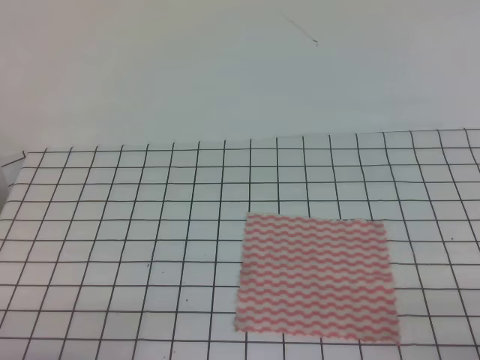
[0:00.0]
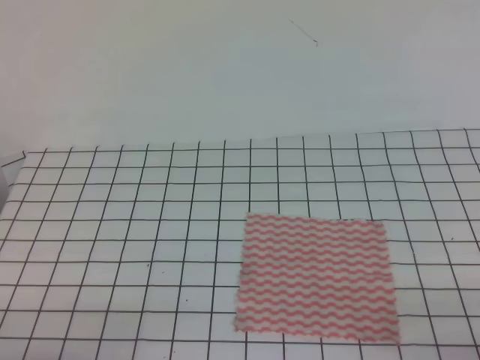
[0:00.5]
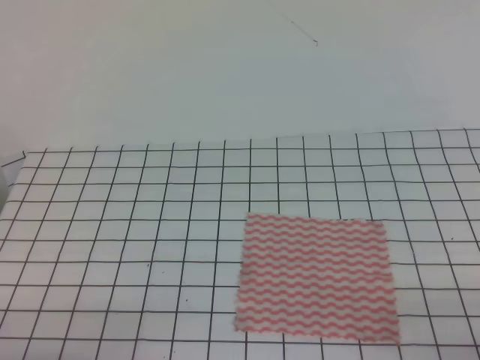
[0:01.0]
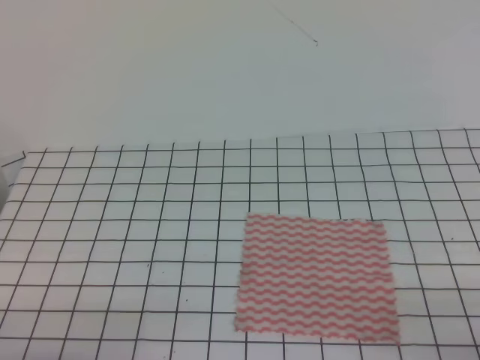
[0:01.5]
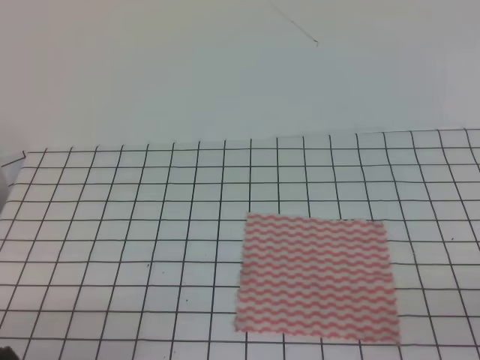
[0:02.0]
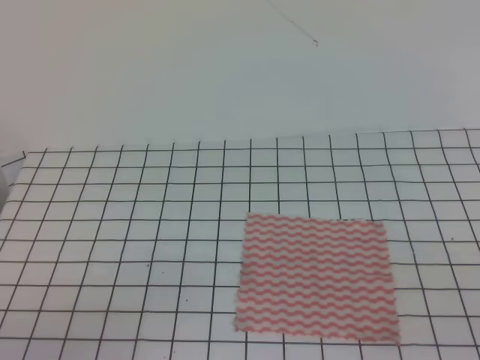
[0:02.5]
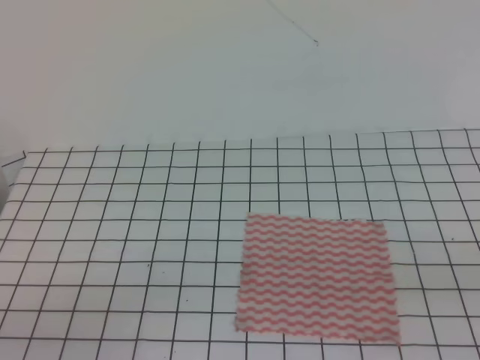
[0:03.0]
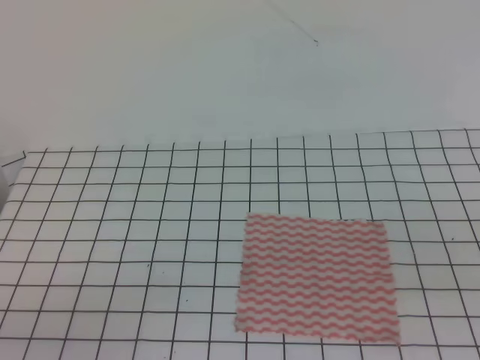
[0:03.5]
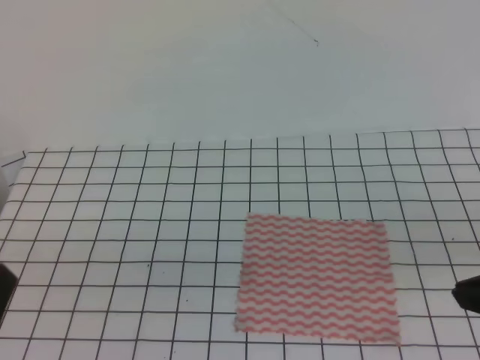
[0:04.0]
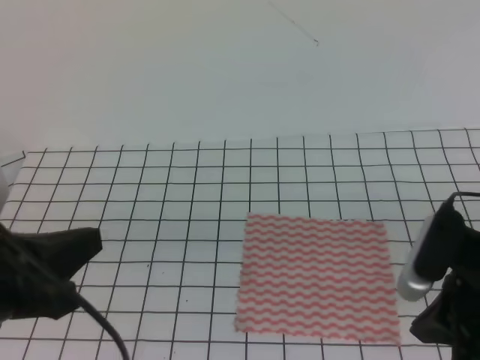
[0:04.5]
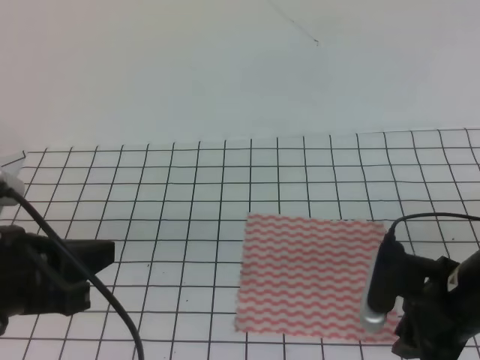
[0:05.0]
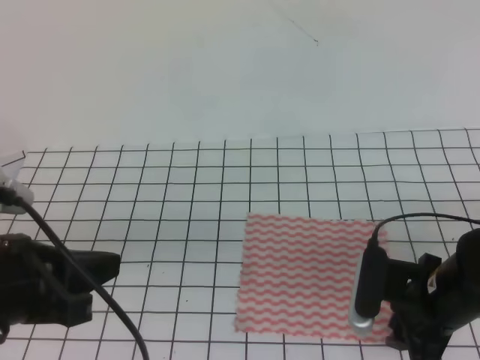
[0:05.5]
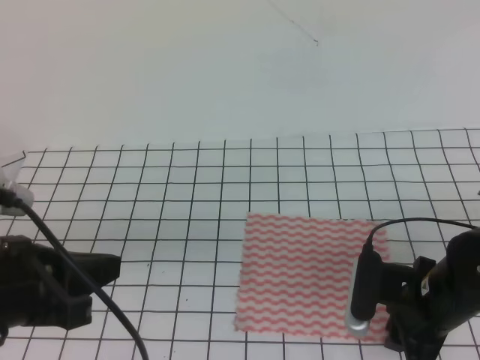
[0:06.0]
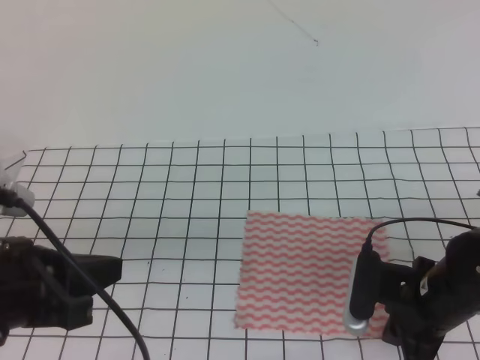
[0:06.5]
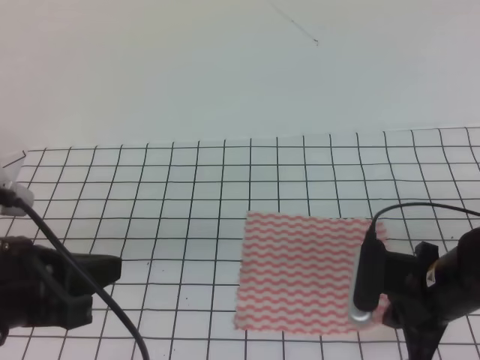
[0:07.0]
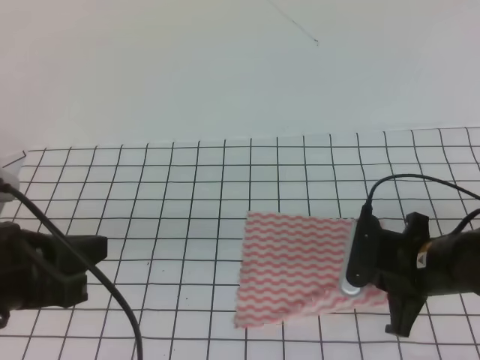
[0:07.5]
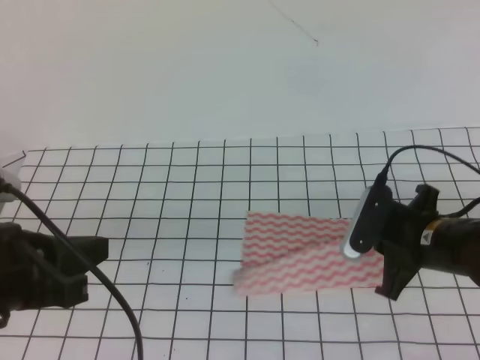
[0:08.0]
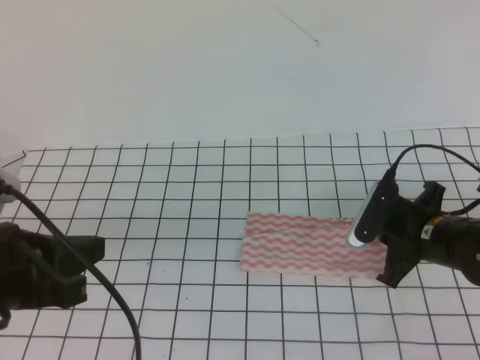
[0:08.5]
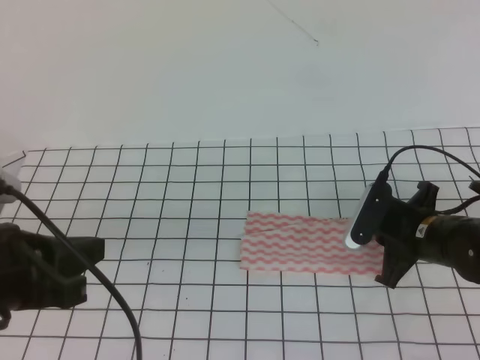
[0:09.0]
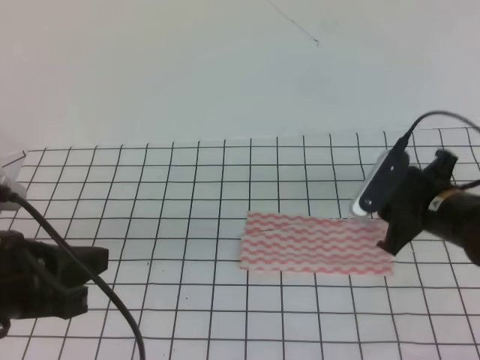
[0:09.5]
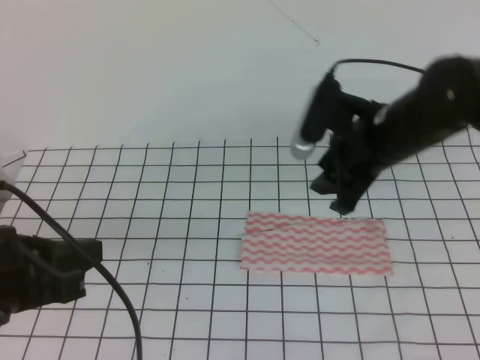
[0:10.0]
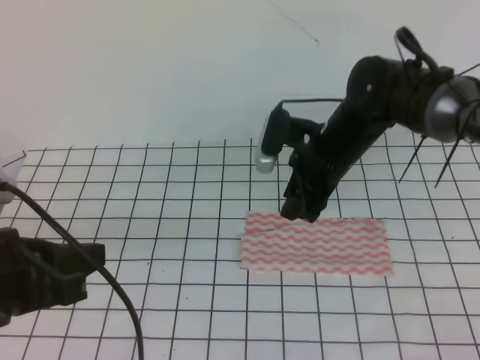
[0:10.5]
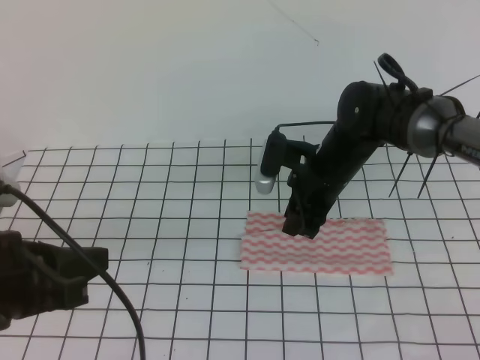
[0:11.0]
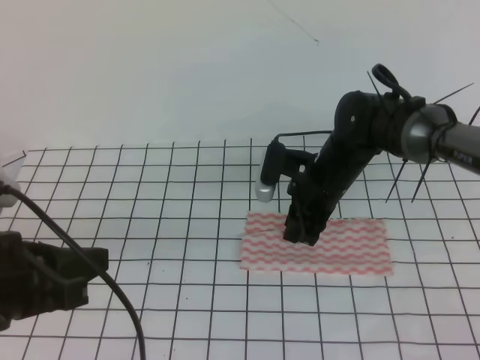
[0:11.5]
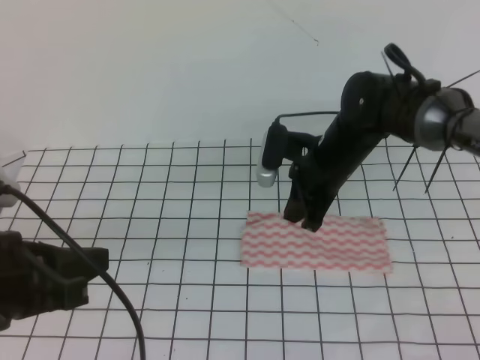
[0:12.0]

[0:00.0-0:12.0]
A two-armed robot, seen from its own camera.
0:02.0 to 0:04.0: The left gripper heads upward, covering approximately 10 cm. Meanwhile the right gripper is displaced forward, upward and to the left by approximately 15 cm.
0:04.0 to 0:06.0: The left gripper shifts some 10 cm forward, while the right gripper heads downward, forward and to the left, covering some 20 cm, and opens.
0:06.0 to 0:08.0: The right gripper heads forward, covering roughly 5 cm, and closes its fingers.
0:08.0 to 0:10.0: The right gripper moves upward and forward, roughly 10 cm, and opens.
0:10.0 to 0:12.0: The right gripper travels downward and forward by about 10 cm, and closes its fingers.

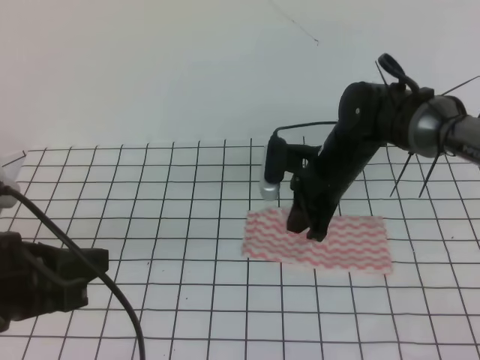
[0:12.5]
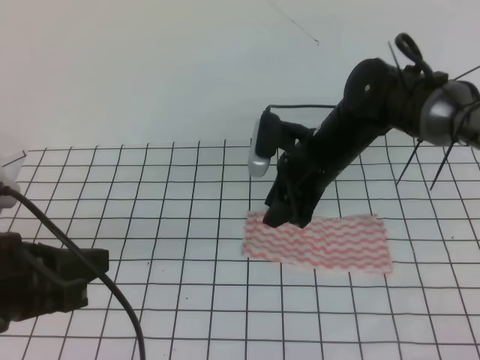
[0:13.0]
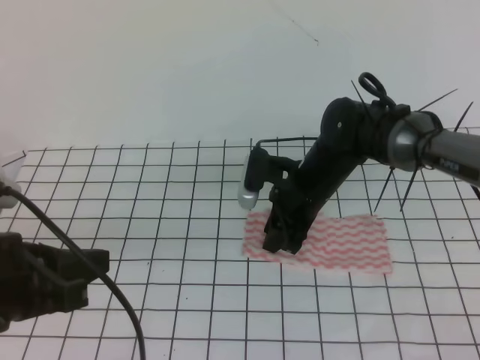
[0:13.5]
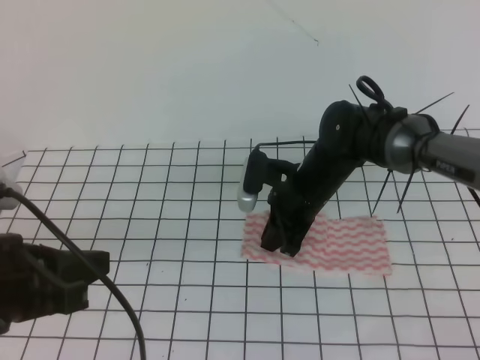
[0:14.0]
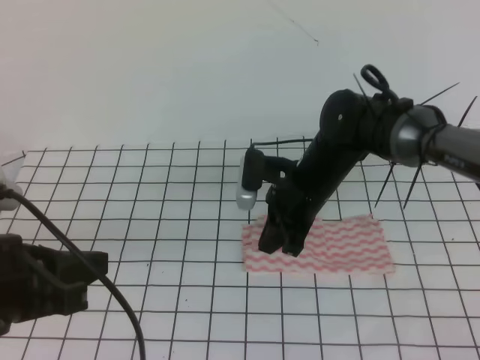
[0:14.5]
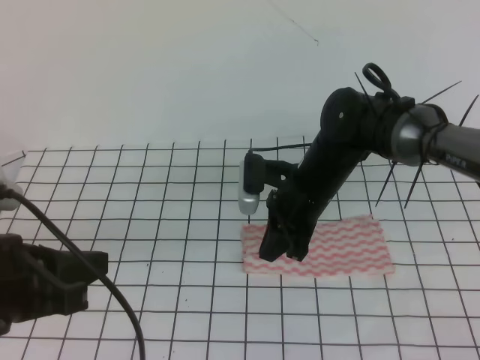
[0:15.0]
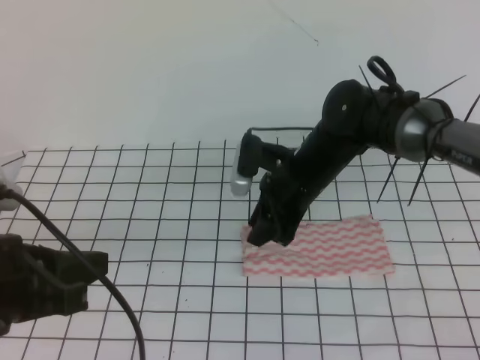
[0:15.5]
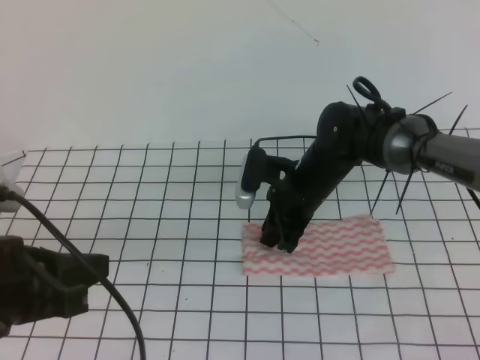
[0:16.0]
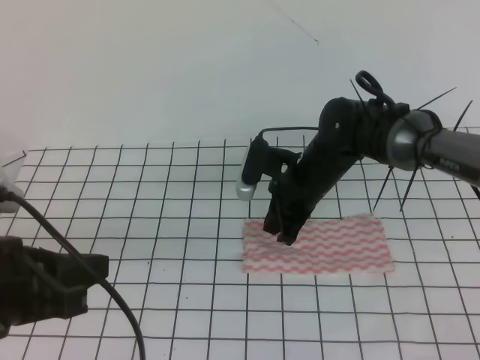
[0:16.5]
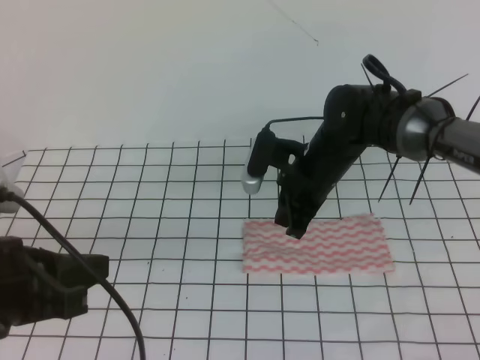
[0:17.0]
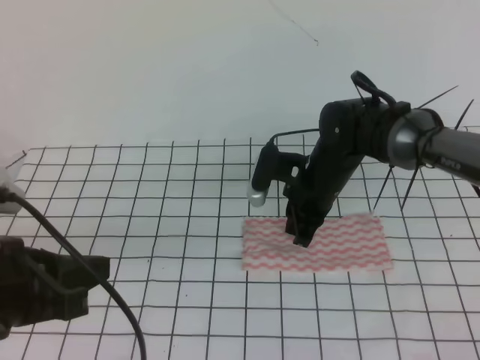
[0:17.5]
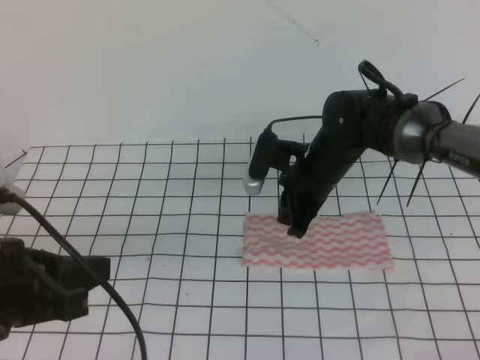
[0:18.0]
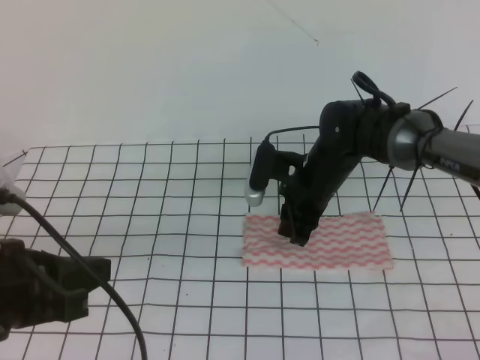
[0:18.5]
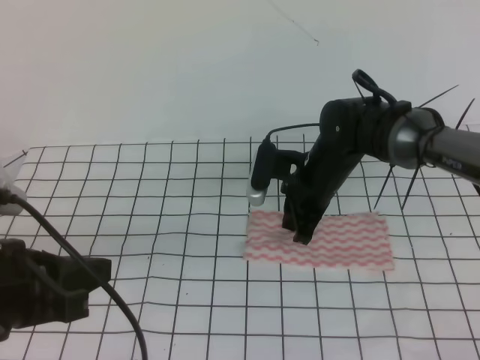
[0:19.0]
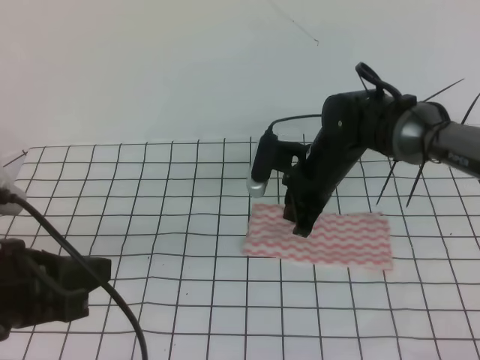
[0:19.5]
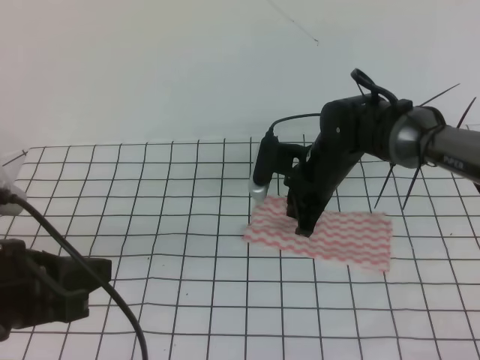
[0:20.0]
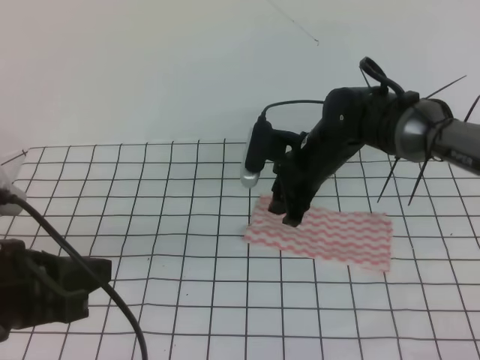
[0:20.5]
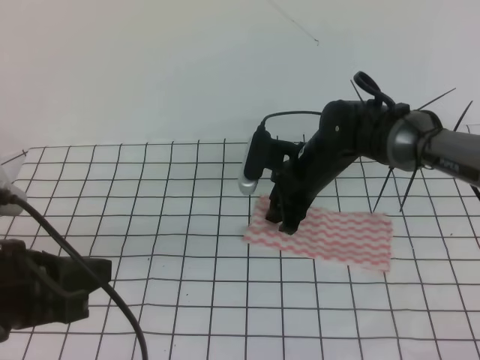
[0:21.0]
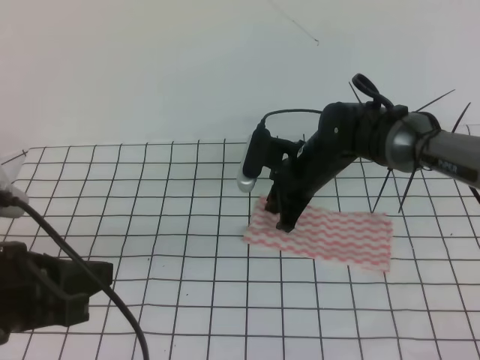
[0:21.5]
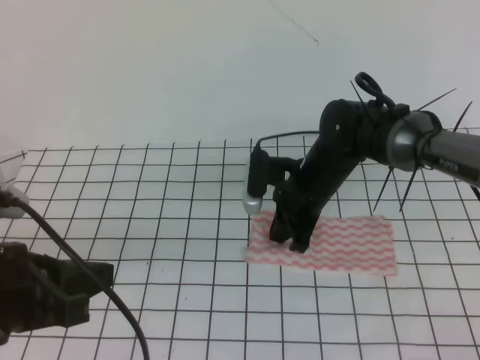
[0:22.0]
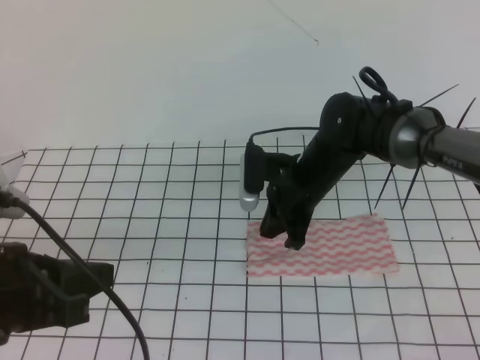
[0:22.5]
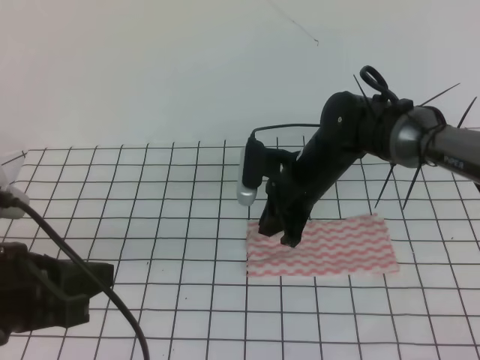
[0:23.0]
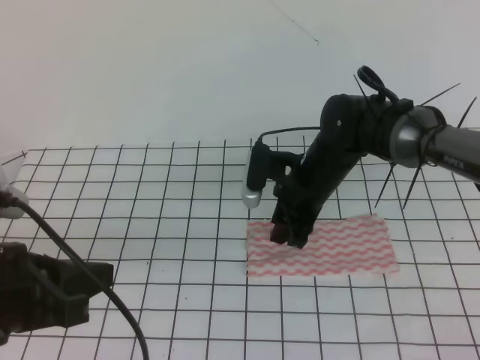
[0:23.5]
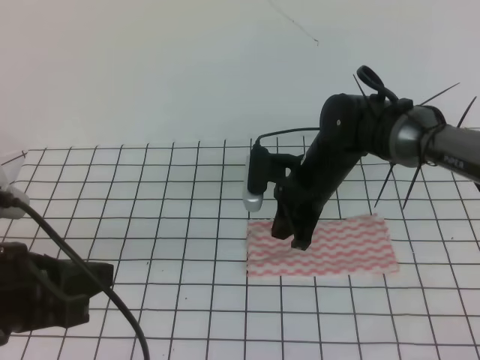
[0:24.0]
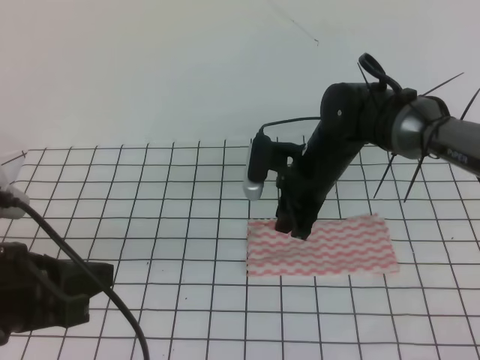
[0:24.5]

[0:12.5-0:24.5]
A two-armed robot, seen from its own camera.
0:12.5 to 0:14.5: The right gripper opens, then closes again.
0:14.5 to 0:16.5: The right gripper opens and closes again.
0:16.5 to 0:18.5: The grippers stay close to where they were, moving slightly.
0:18.5 to 0:20.5: The right gripper opens its fingers.
0:20.5 to 0:22.5: The right gripper closes up.
0:22.5 to 0:24.5: The right gripper opens up.

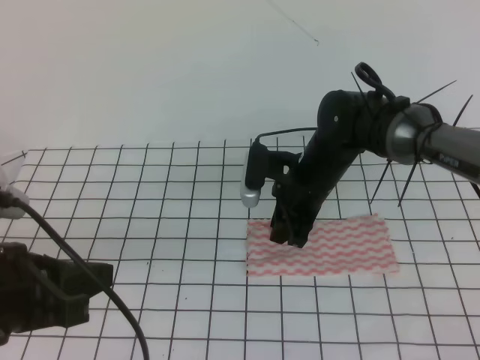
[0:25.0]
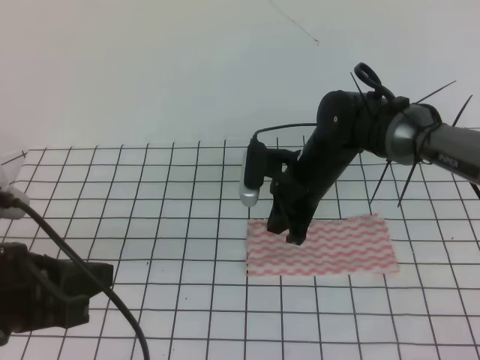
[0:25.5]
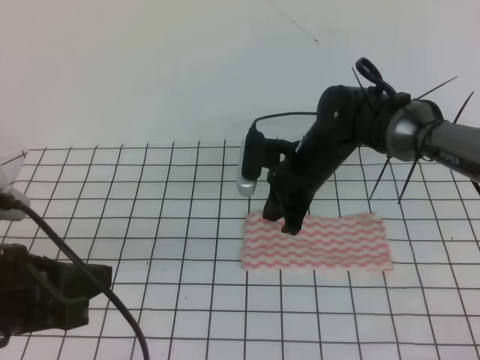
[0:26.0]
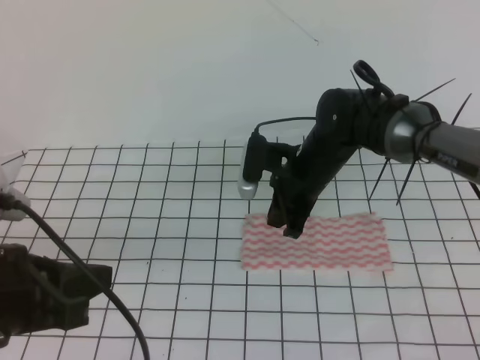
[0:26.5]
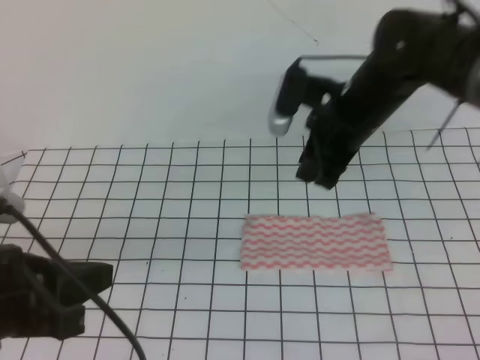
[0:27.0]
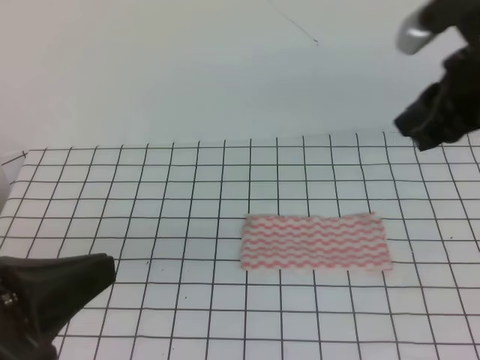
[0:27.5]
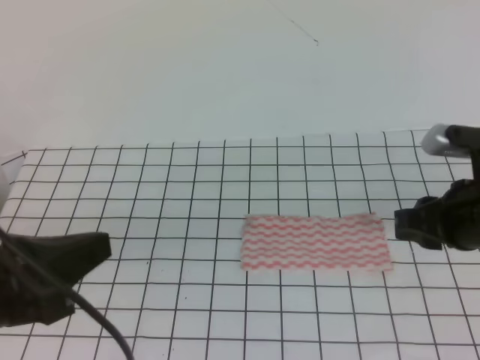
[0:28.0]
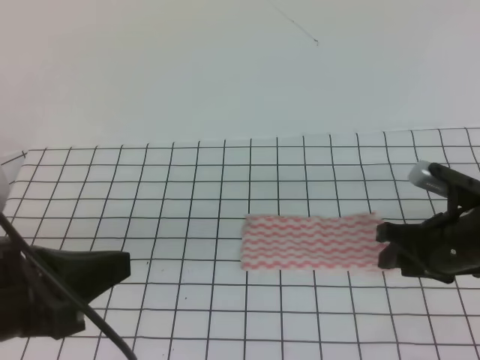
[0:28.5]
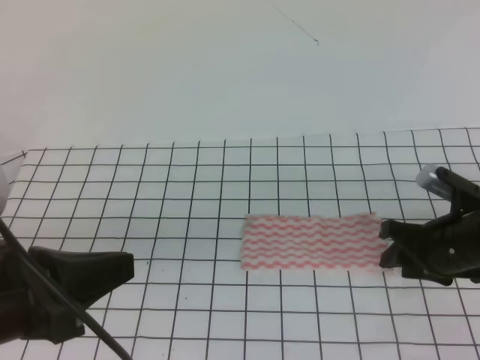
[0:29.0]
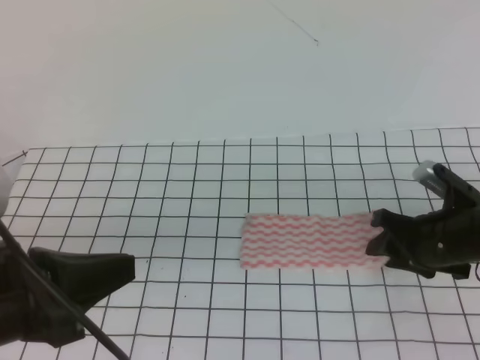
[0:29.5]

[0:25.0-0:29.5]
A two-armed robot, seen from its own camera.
0:25.0 to 0:27.0: The right gripper shifts some 10 cm upward, and closes, then reopens.
0:27.0 to 0:29.5: The right gripper is displaced downward, to the right and backward by approximately 20 cm.
